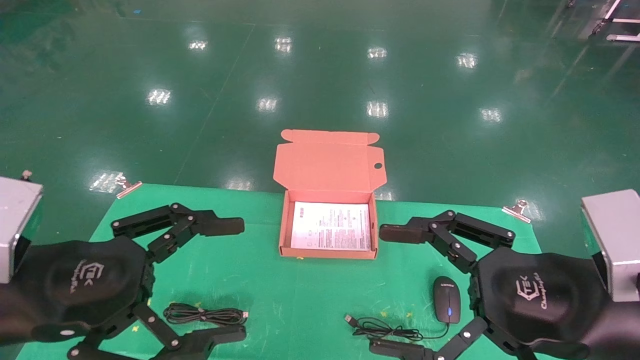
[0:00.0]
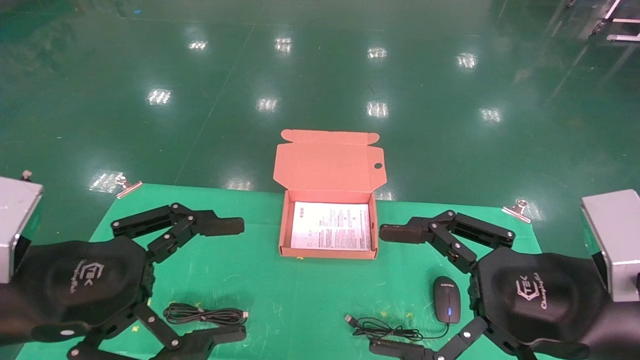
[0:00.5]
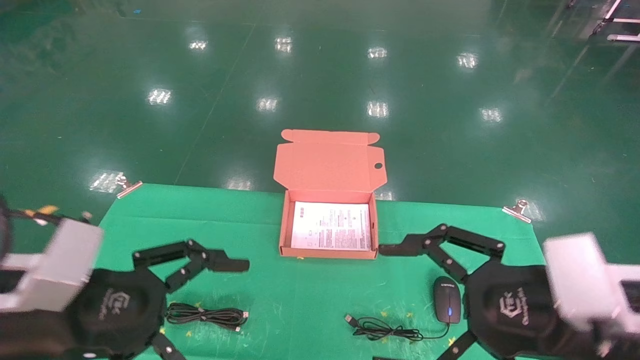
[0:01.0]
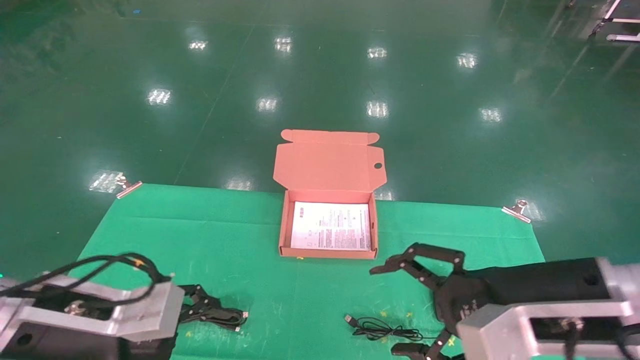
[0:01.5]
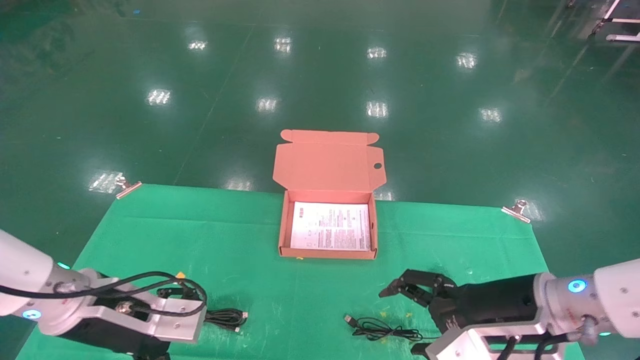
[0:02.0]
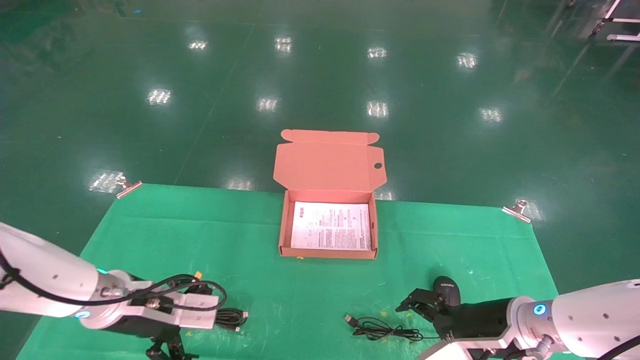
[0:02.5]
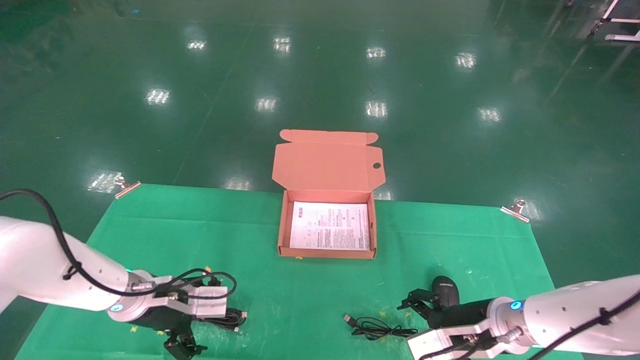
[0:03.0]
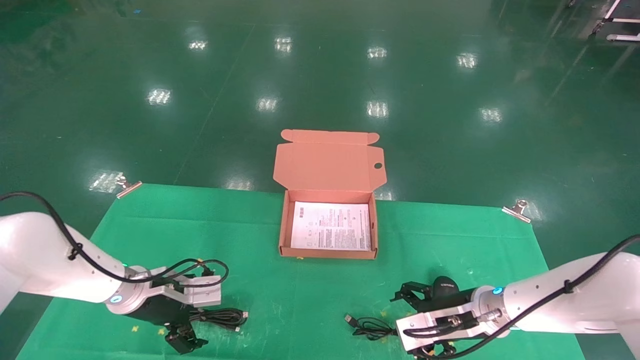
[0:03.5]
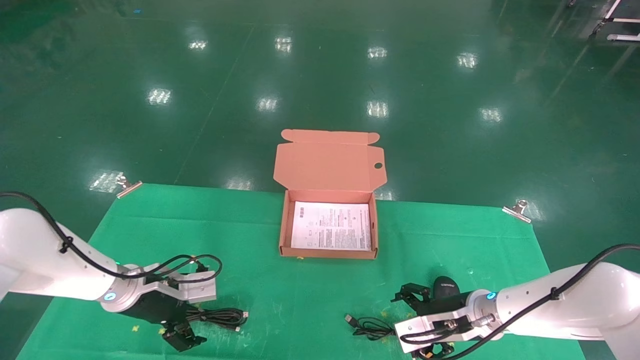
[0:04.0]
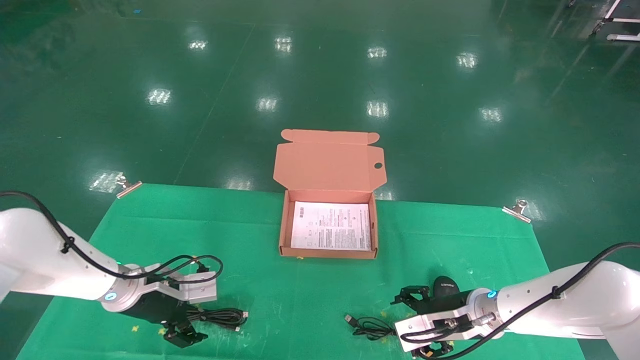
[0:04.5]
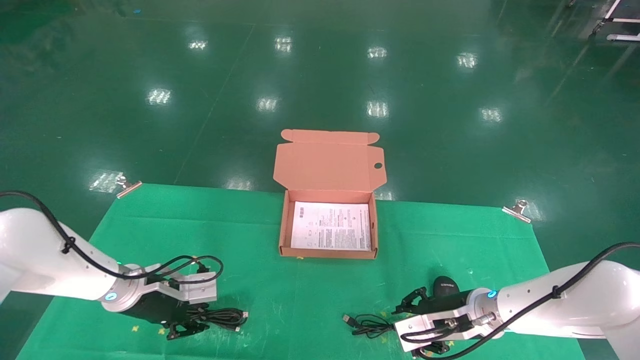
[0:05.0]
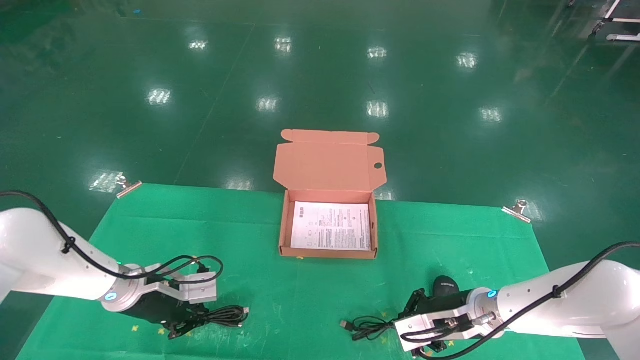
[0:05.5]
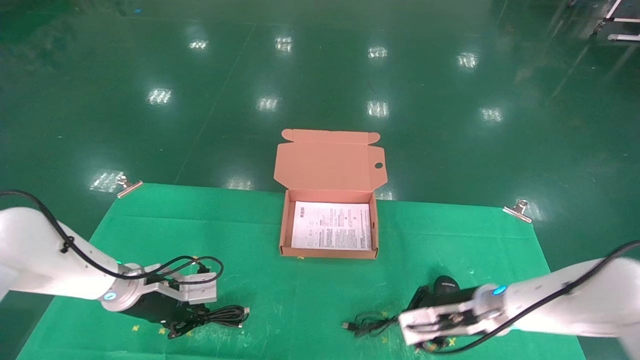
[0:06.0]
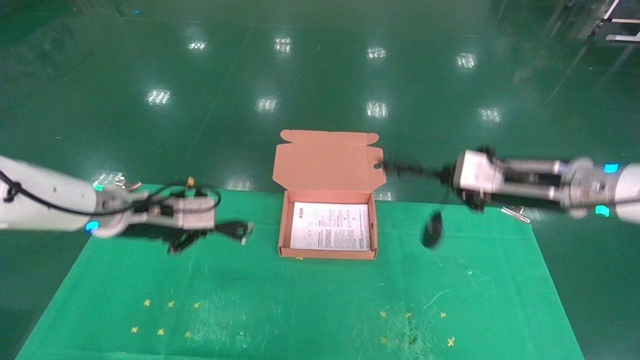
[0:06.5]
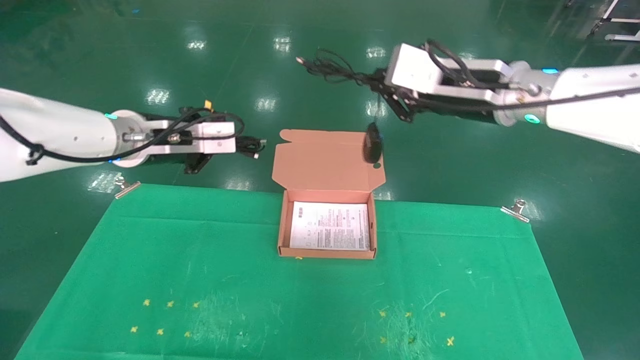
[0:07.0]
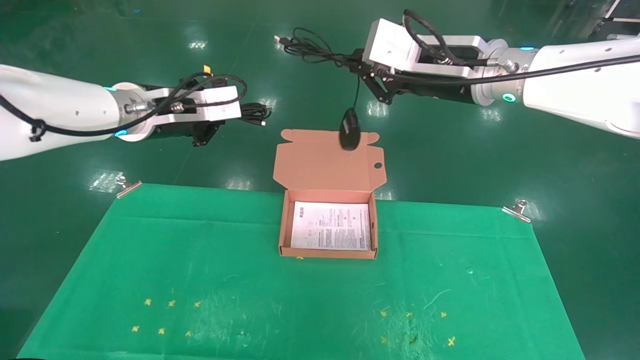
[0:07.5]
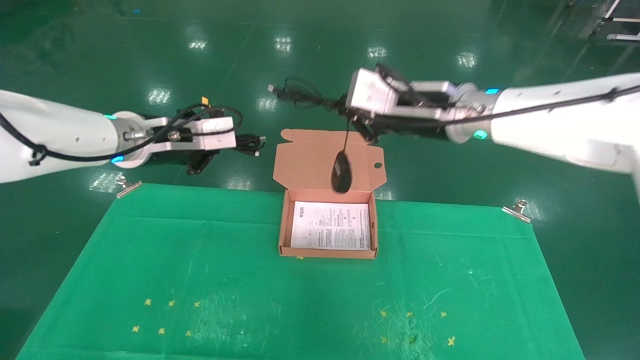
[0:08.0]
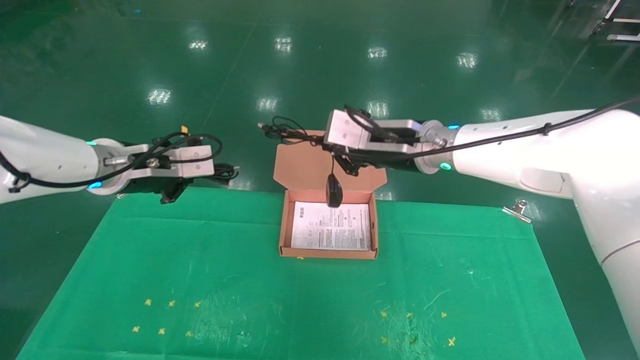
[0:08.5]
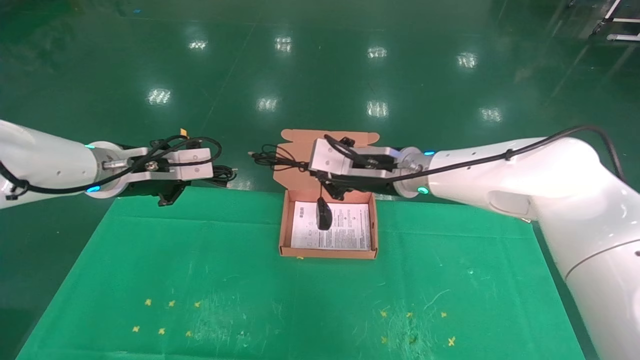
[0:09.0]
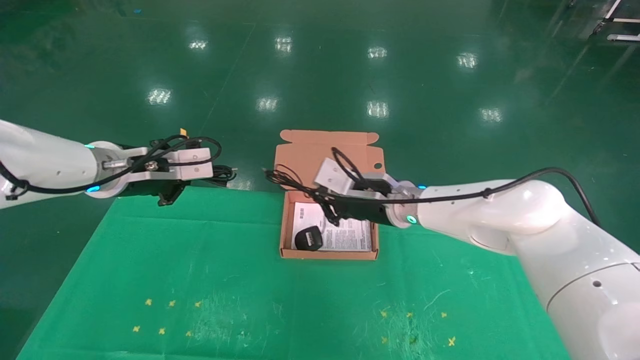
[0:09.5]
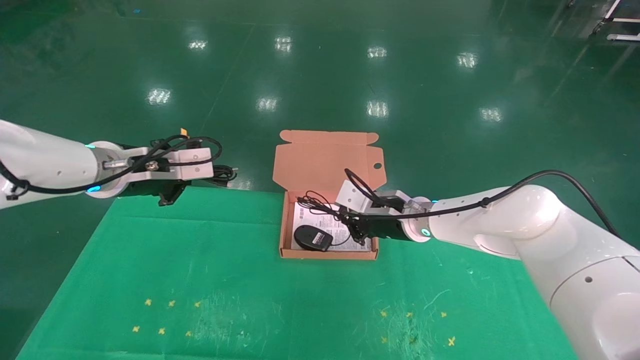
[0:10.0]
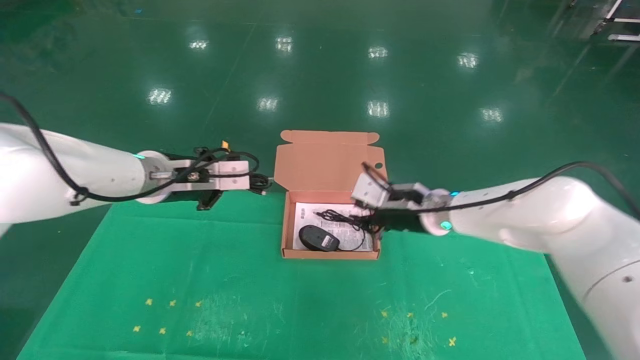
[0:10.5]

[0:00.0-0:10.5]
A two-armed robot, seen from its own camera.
Task of the whole recording: grasp data cable left put into box grasp mouse right put into box.
Step, 0:01.5 to 0:05.0: Grab and pick up both the mouse and power cord from the accessory packaging area at the same time.
0:00.0 to 0:02.0: Both grippers travel together forward and downward, approximately 10 cm.
0:02.0 to 0:04.0: Both grippers move forward and downward, about 15 cm.
0:04.0 to 0:06.5: Both grippers move upward, about 20 cm. The right gripper closes. Meanwhile the left gripper closes.
0:06.5 to 0:08.5: The right gripper moves to the left, approximately 15 cm. The left gripper moves upward, some 5 cm.
0:08.5 to 0:10.5: The right gripper is displaced downward by some 10 cm. The left gripper shifts by approximately 5 cm.

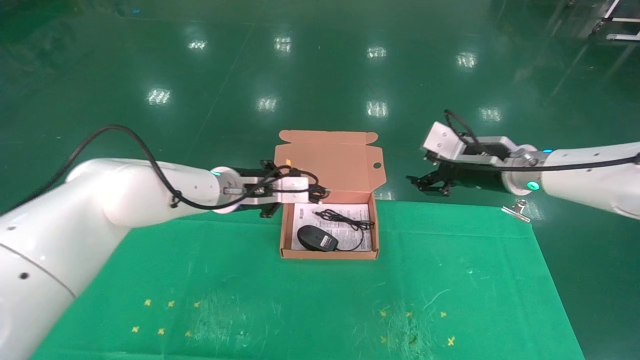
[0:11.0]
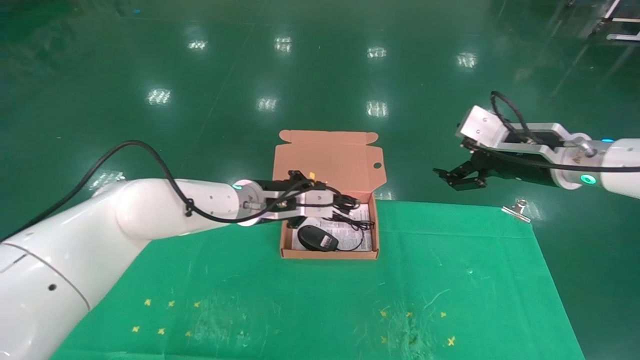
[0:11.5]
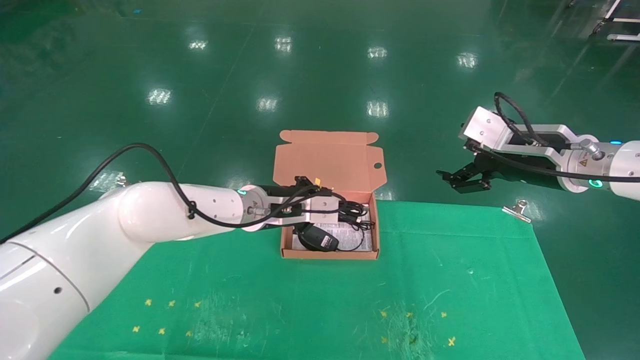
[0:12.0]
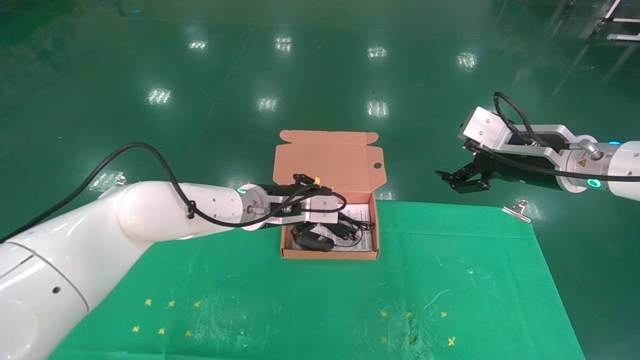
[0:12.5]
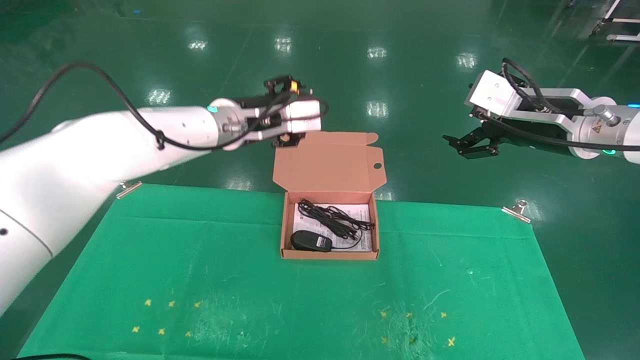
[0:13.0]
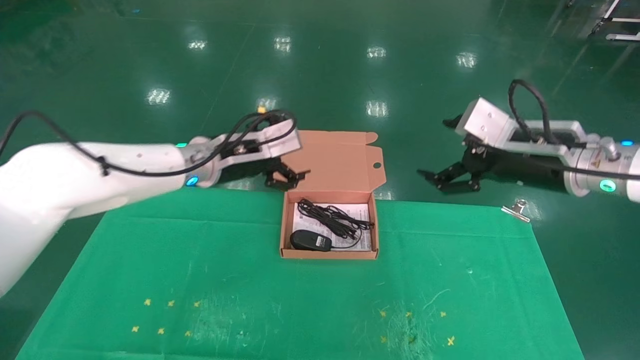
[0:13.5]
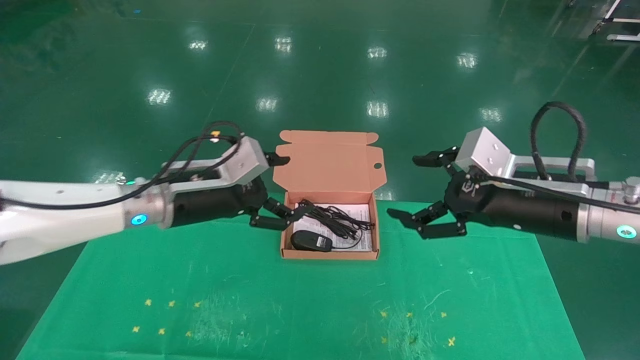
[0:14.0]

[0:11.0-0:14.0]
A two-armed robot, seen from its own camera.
Task of the whole recording: grasp data cable left put into box grasp mouse right put into box.
0:11.0 to 0:12.5: The left gripper heads to the right, covering some 5 cm, while the right gripper moves backward and to the right, approximately 10 cm, and opens up.
0:12.5 to 0:14.0: The left gripper goes about 15 cm to the left and backward, and opens up. Meanwhile the right gripper moves backward, some 10 cm.
